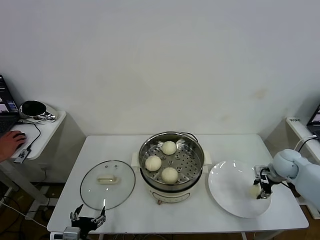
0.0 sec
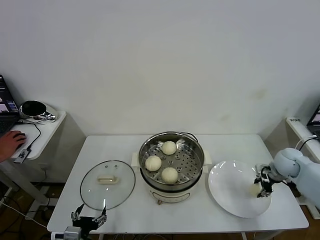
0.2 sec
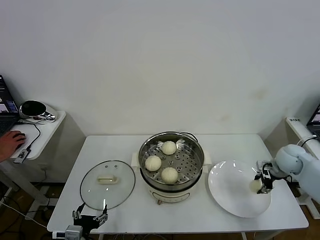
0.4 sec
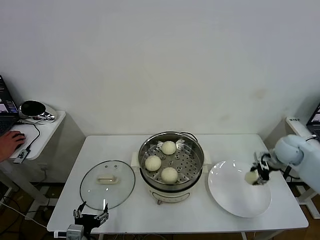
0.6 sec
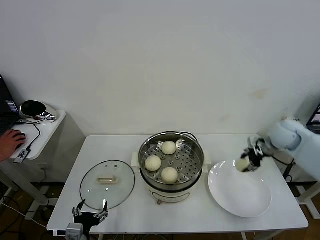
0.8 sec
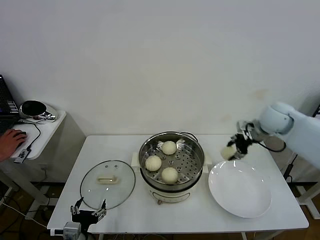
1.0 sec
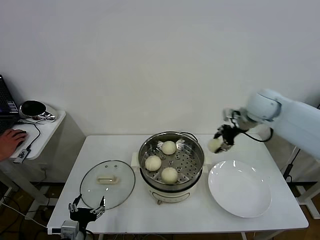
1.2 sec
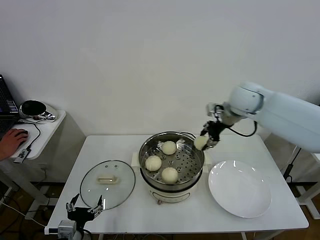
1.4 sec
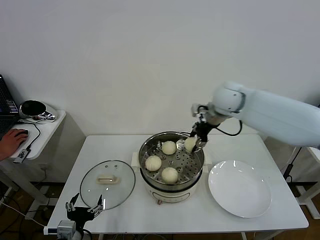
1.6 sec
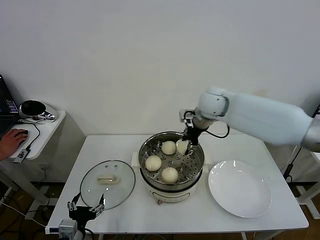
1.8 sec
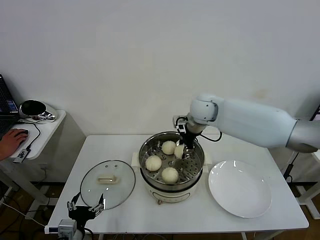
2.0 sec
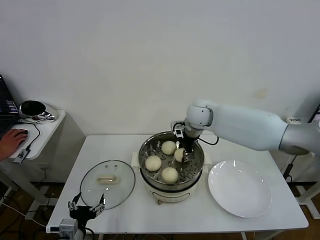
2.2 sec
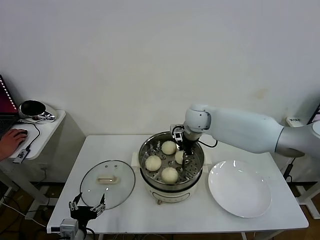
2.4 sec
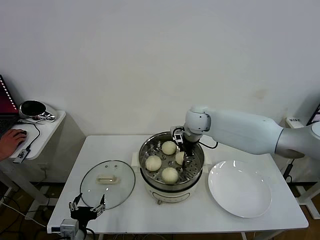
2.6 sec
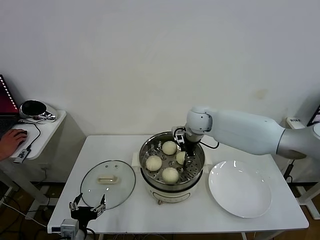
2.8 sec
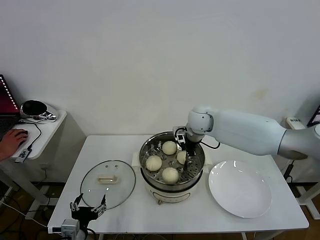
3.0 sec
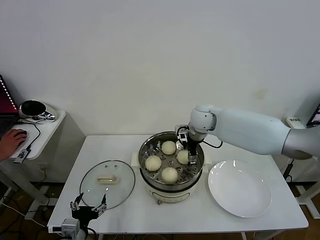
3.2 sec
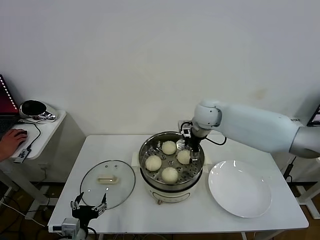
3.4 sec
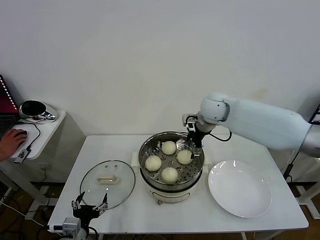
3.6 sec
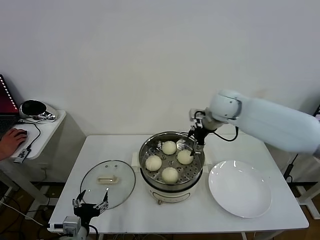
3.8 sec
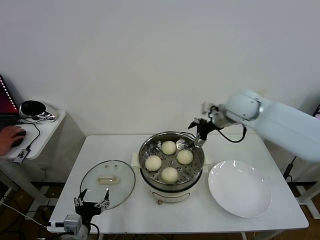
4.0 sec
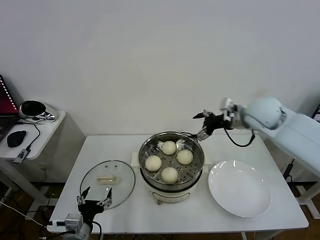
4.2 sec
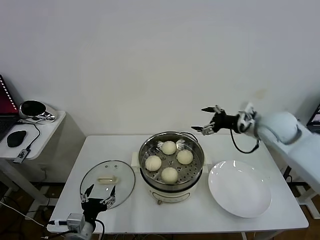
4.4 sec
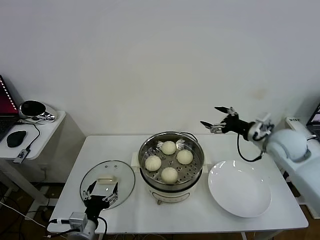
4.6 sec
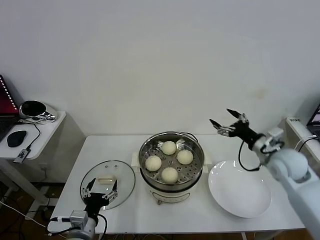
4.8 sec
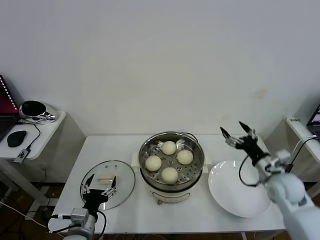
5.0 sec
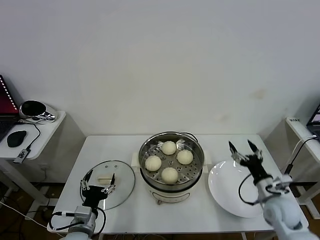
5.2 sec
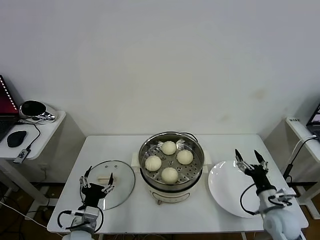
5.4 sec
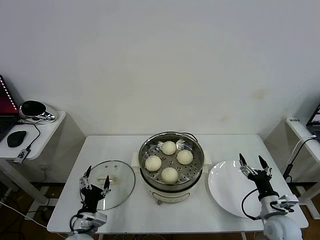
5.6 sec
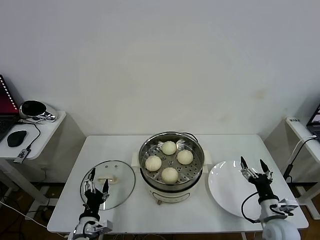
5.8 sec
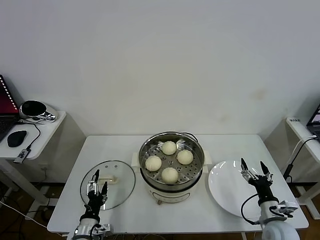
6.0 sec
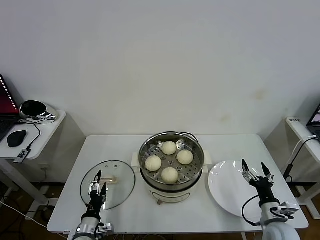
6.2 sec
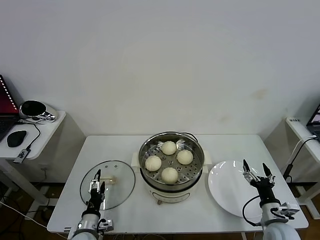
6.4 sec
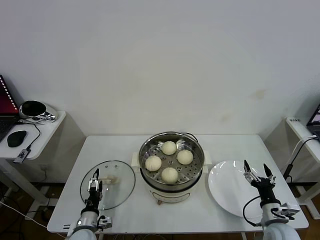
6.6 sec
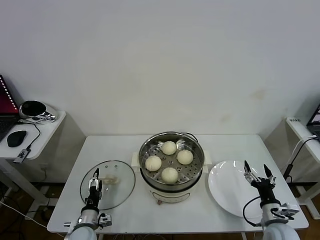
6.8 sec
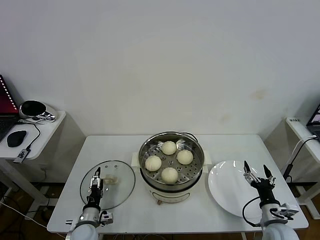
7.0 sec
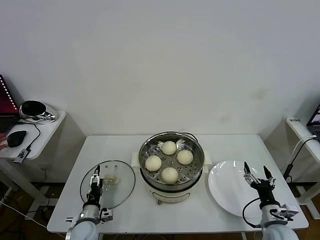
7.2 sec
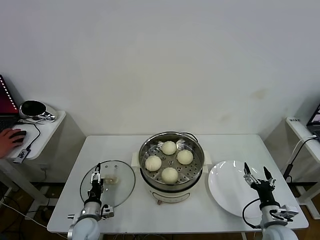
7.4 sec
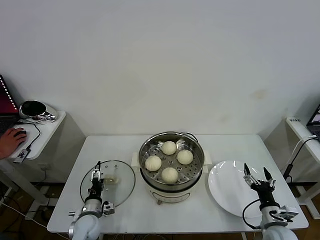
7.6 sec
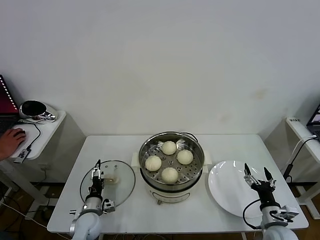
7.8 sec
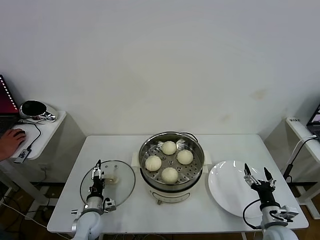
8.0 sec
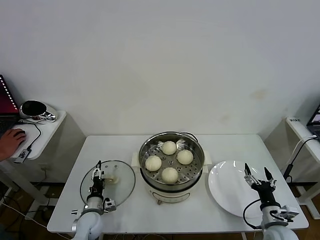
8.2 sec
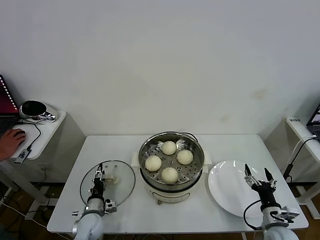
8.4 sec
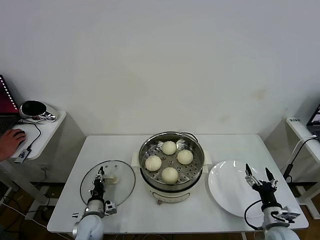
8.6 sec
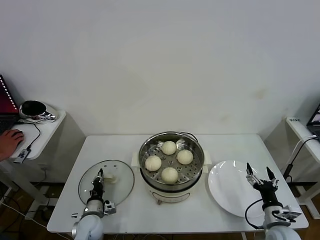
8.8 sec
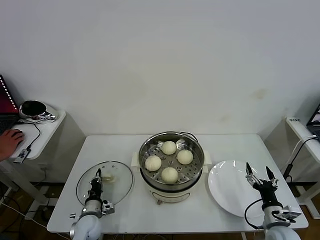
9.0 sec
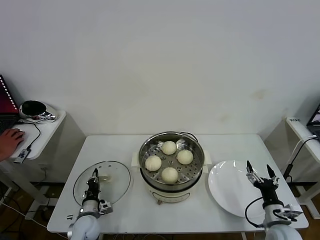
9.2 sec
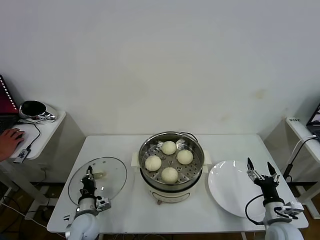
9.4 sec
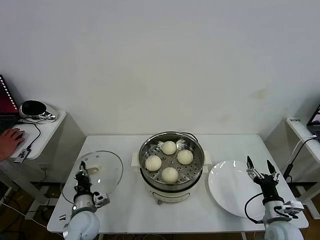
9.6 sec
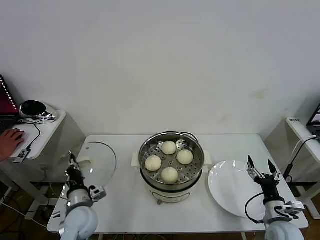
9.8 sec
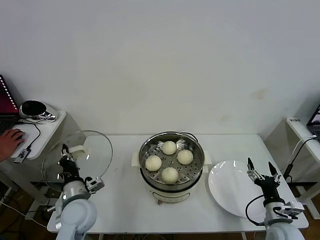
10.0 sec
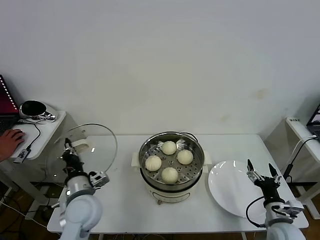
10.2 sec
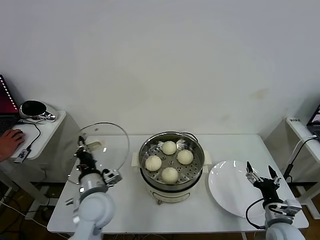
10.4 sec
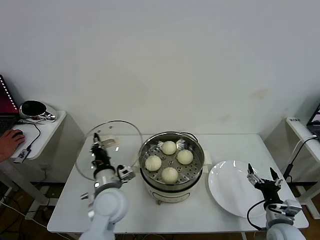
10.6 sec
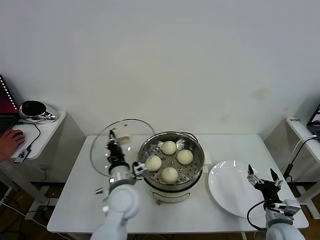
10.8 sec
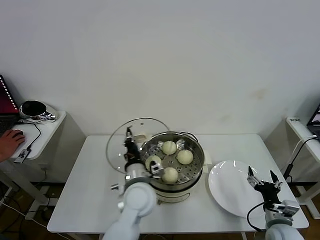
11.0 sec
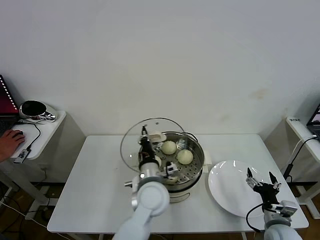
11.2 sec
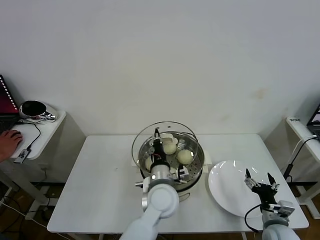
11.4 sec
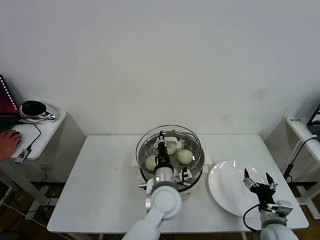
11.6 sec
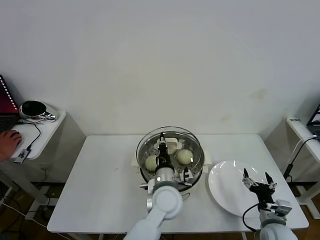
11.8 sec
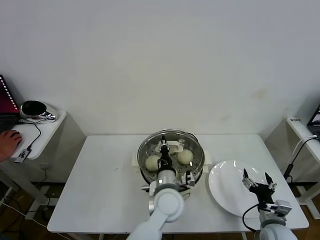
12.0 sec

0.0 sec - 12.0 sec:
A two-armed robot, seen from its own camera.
Task of the whole recording: take steamed baozi put them in steamer then cover it.
Step, 0.2 sec - 3.2 sec: Place the baozi on the steamer with right gripper.
Step, 3.6 sec - 9.0 sec: Grasp the pot lid with left gripper.
0.0 sec - 1.6 sec: The right gripper is displaced to the left and upward by approximately 35 cm.
1.6 sec - 3.0 sec: The right gripper goes roughly 10 cm downward and to the left.
3.0 sec - 4.4 sec: The right gripper shifts some 20 cm to the right and backward, and opens up.
4.4 sec - 6.0 sec: The left gripper moves downward, roughly 10 cm. The right gripper travels downward and backward by roughly 35 cm.
6.0 sec - 7.6 sec: The left gripper shifts roughly 10 cm forward and downward.
7.6 sec - 9.0 sec: The left gripper closes up.
9.0 sec - 10.4 sec: The left gripper heads upward and to the right, covering approximately 25 cm.
10.4 sec - 12.0 sec: The left gripper heads to the right, covering some 20 cm.

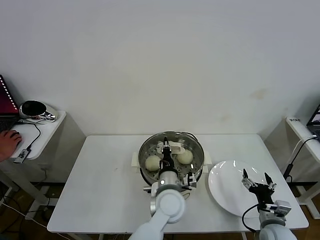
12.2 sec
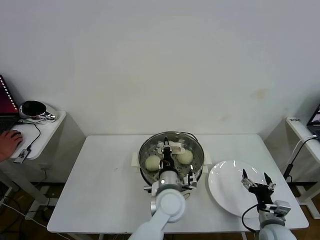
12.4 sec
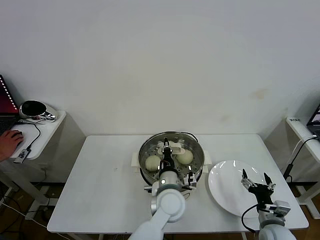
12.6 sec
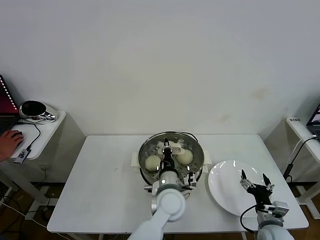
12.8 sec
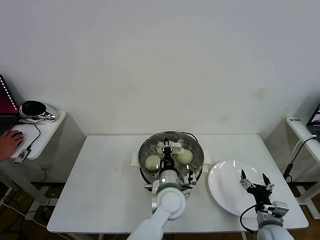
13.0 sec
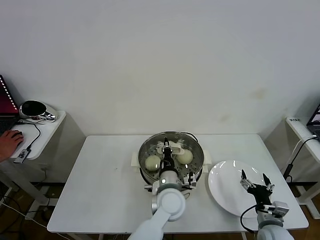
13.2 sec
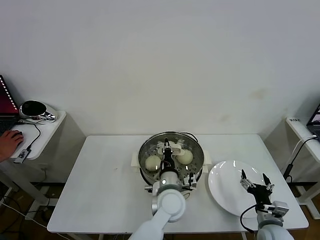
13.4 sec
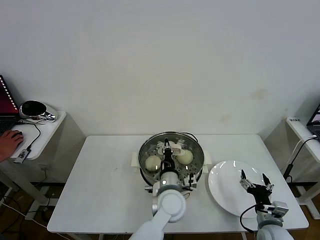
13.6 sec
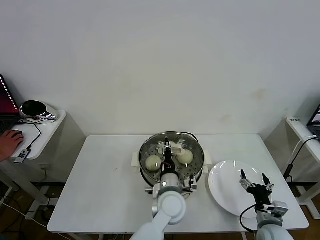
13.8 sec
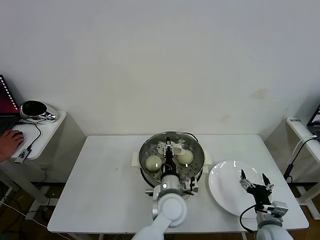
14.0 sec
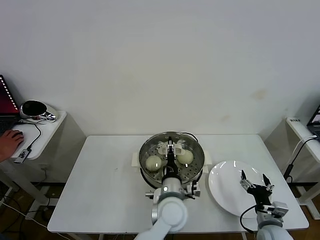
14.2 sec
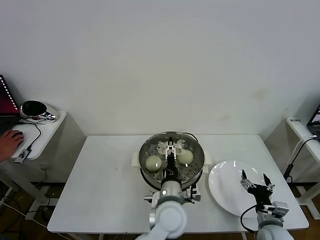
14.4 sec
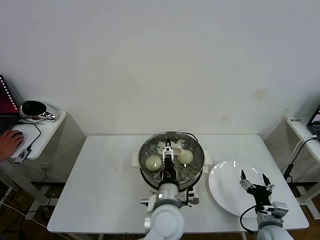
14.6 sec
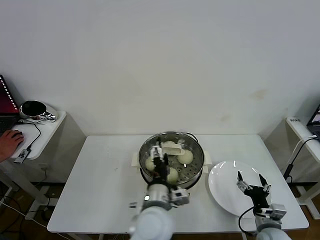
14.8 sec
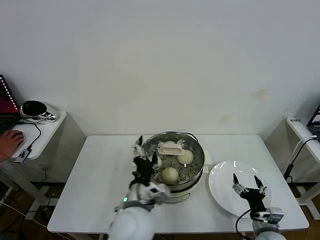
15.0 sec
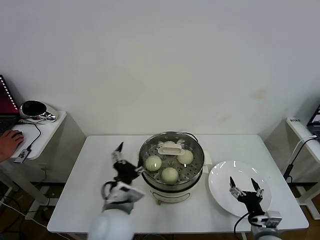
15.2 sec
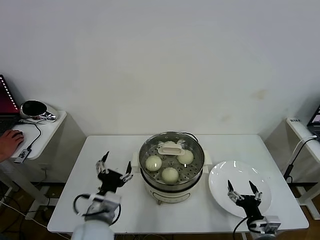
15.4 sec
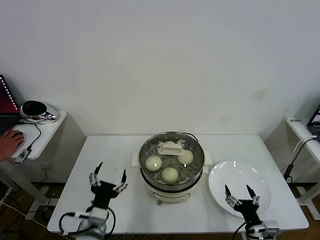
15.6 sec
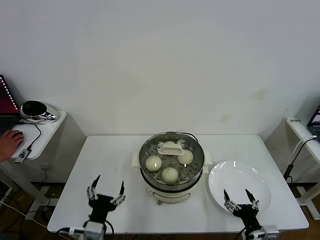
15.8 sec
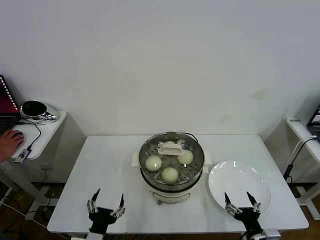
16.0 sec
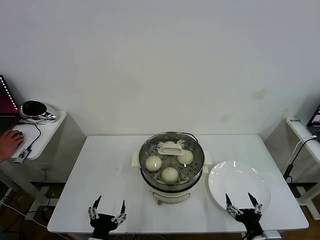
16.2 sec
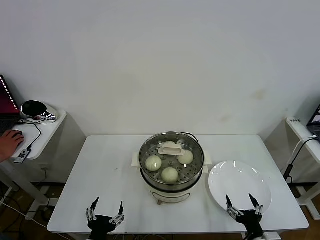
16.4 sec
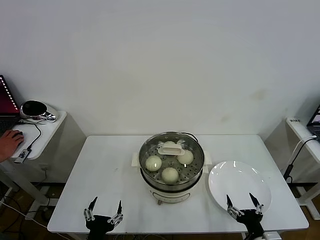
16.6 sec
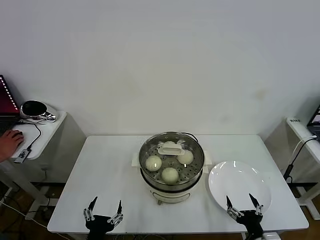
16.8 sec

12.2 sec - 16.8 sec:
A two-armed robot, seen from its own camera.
Task of the whole recording: take steamed baozi put them in steamer then cover it.
Step, 12.2 sec - 14.6 sec: Place the pot lid on the steamer with left gripper.
12.2 sec - 13.8 sec: The grippers move only a little.
13.8 sec - 15.2 sec: The left gripper is displaced to the left, upward and backward by approximately 15 cm, and opens.
15.2 sec - 16.8 sec: The right gripper shifts about 5 cm backward. The left gripper moves backward, to the left and downward, approximately 20 cm.

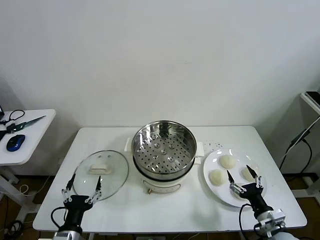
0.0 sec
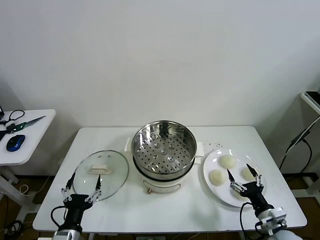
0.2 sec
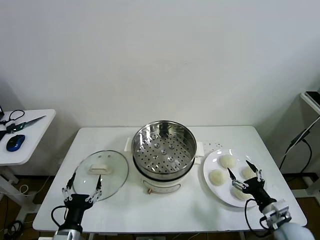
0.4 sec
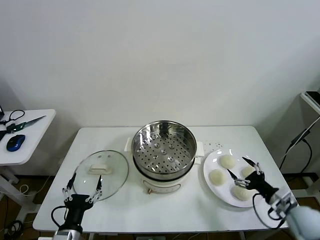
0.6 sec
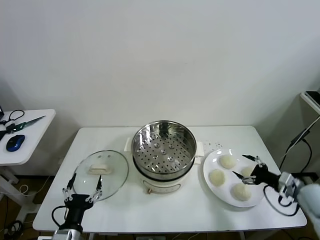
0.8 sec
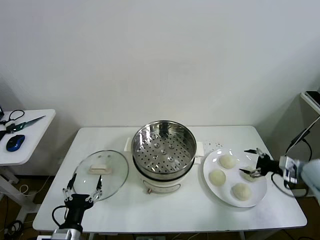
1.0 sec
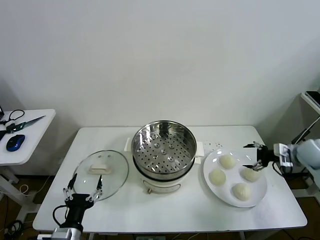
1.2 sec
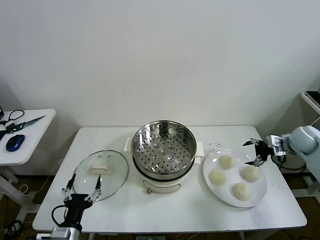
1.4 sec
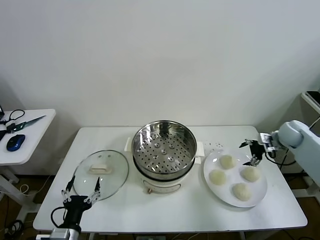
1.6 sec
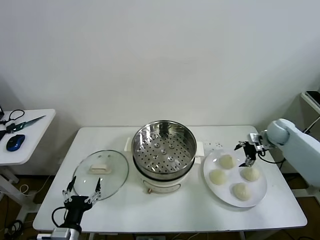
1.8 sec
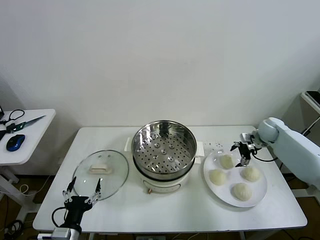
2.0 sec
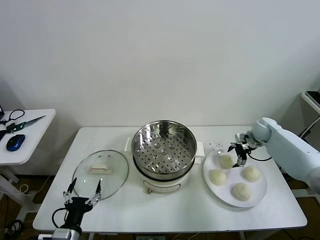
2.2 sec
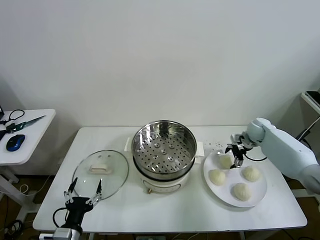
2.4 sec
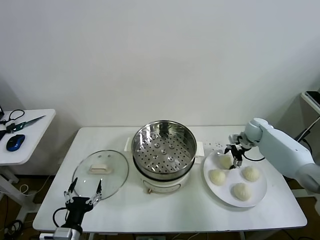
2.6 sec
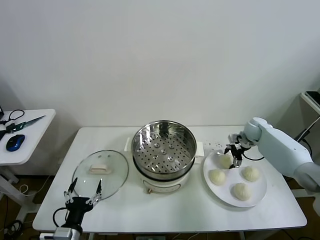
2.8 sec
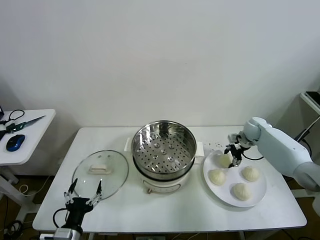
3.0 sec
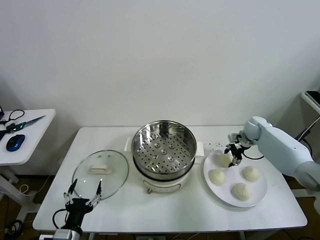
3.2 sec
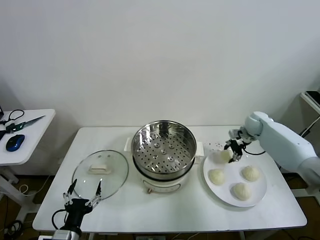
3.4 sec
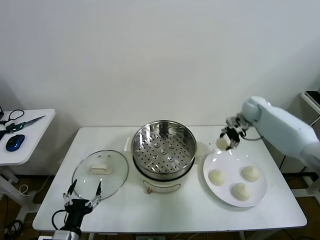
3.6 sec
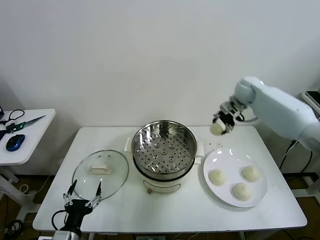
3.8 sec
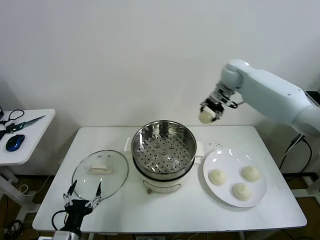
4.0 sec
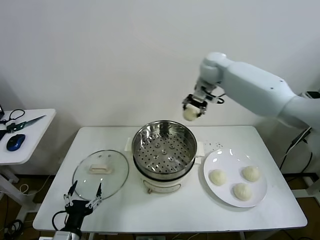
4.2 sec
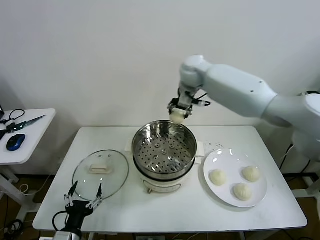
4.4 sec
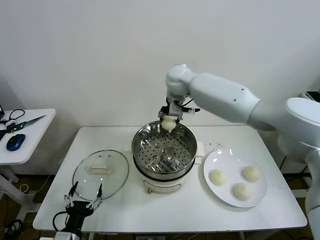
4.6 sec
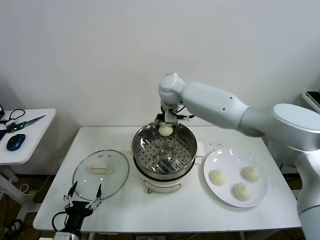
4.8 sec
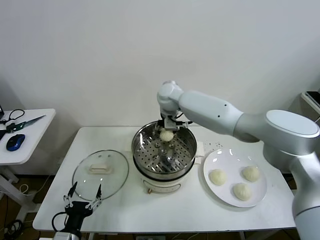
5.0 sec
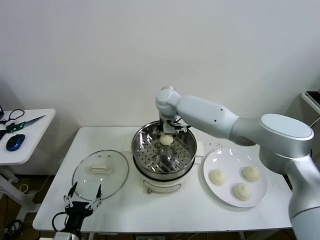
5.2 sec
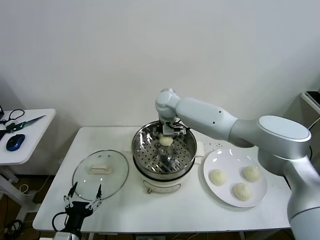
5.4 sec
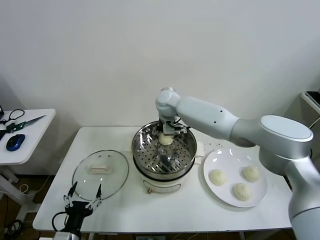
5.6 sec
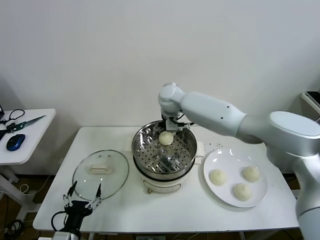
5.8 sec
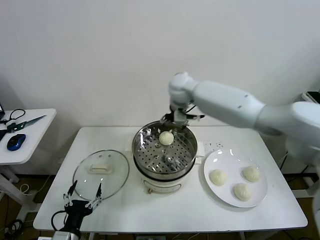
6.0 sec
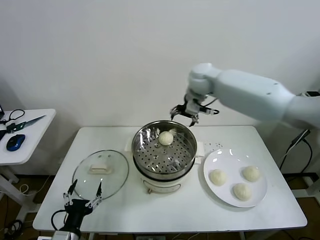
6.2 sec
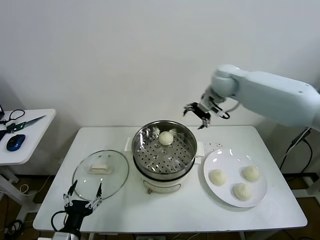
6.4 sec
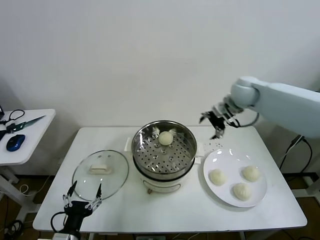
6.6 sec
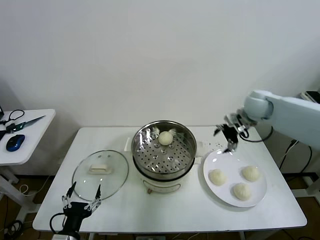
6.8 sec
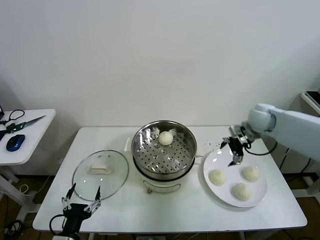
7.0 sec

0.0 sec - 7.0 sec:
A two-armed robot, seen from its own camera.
Task of the whole recording: take steamed baozi put them in steamer then cover it.
Step, 0.0 sec - 3.0 sec: Grasp the baozi in the plate with right gripper.
Step, 3.4 sec - 5.6 sec: Place the baozi on the steamer with right gripper.
1.4 sec - 2.8 sec: The right gripper travels to the left, forward and downward by roughly 15 cm, and closes its fingers.
2.8 sec - 4.2 sec: The right gripper shifts approximately 40 cm to the left and upward, and closes.
4.2 sec - 5.6 sec: The right gripper travels downward and to the left by roughly 15 cm, and opens.
5.6 sec - 7.0 sec: The right gripper heads to the right, covering roughly 35 cm.
